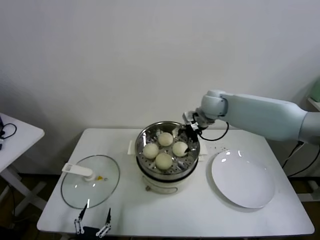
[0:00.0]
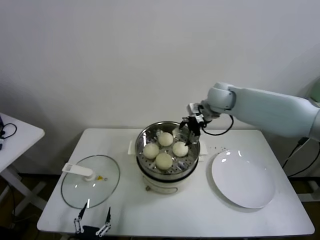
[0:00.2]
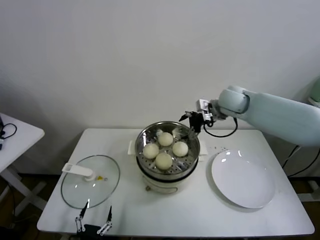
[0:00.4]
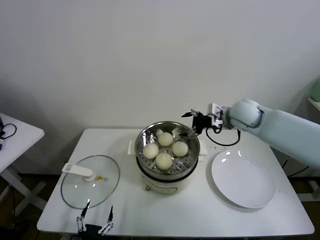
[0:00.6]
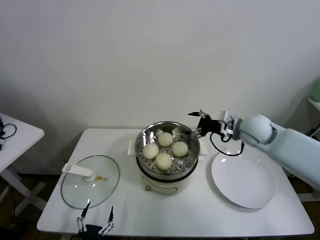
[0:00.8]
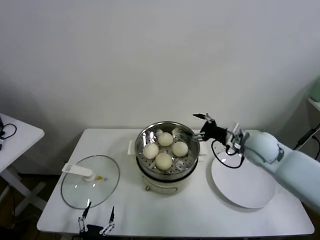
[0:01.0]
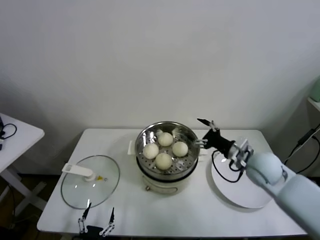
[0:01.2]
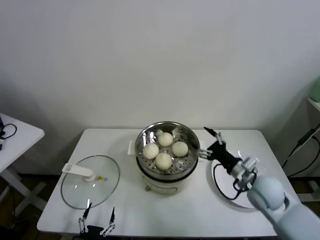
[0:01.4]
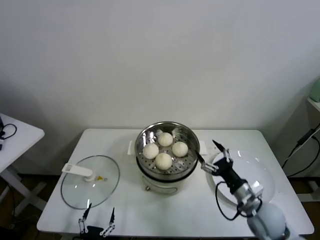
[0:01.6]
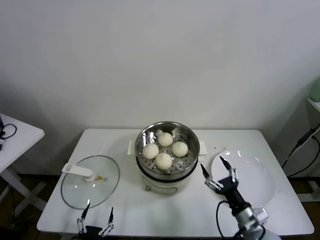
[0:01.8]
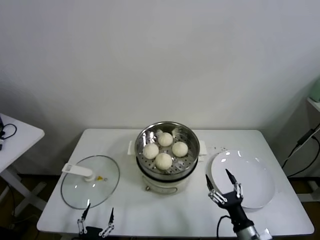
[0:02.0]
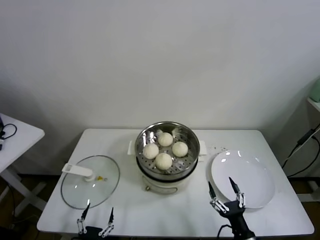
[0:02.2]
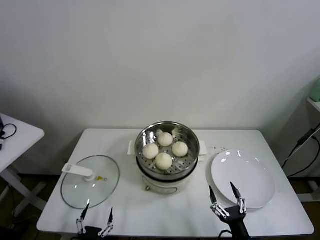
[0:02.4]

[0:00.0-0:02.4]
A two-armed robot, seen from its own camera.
Task of the whole recording: take steamed baozi put them in steamer.
0:00.0 to 0:01.2: The right gripper heads backward, to the right and downward, covering approximately 25 cm.
0:01.2 to 0:02.4: The right gripper travels backward and downward by about 35 cm.
